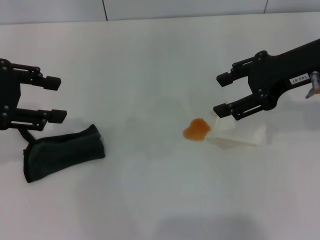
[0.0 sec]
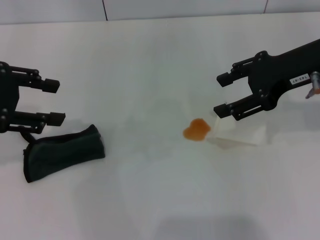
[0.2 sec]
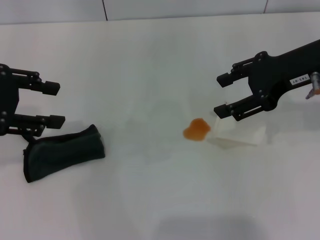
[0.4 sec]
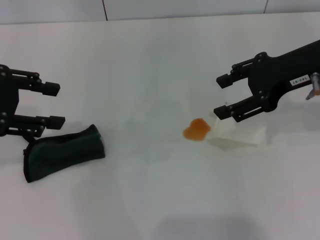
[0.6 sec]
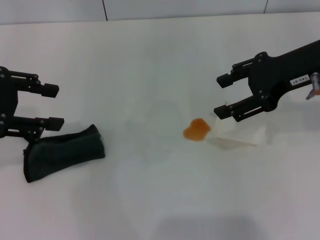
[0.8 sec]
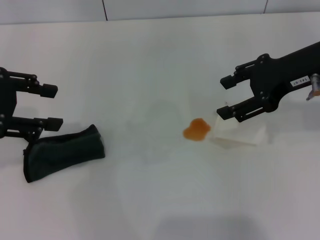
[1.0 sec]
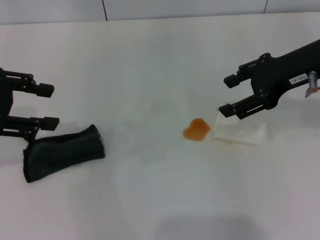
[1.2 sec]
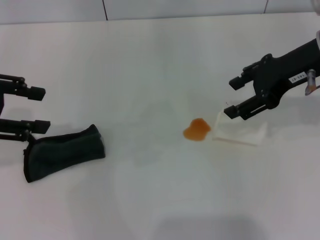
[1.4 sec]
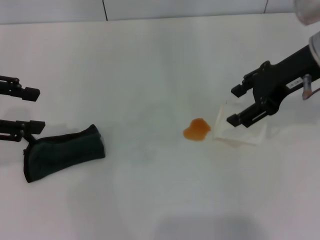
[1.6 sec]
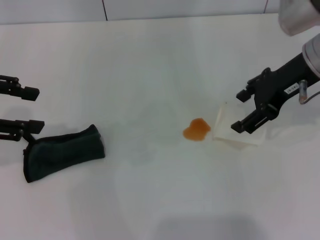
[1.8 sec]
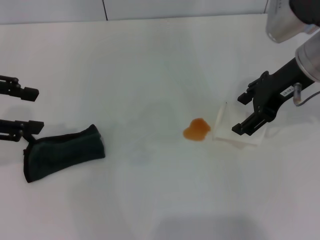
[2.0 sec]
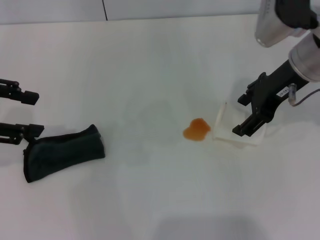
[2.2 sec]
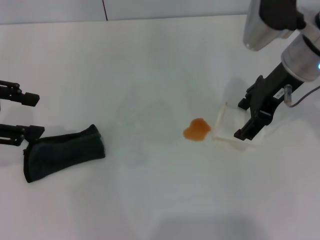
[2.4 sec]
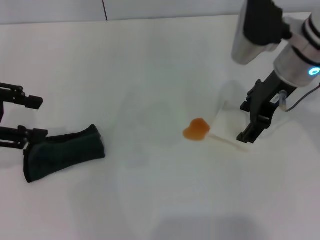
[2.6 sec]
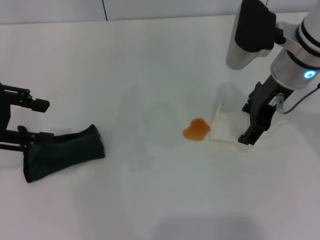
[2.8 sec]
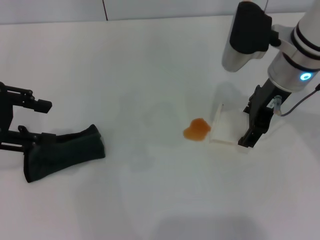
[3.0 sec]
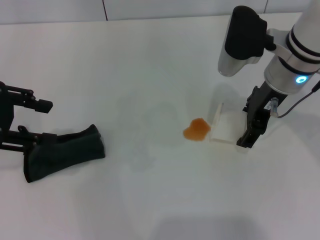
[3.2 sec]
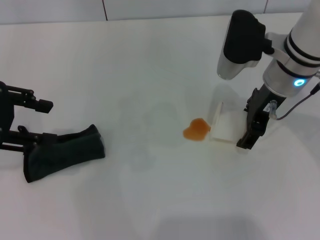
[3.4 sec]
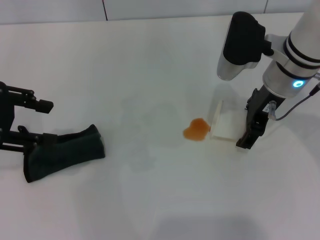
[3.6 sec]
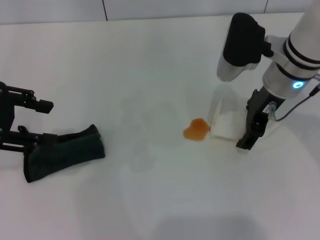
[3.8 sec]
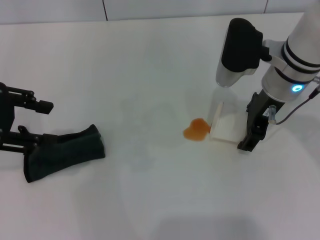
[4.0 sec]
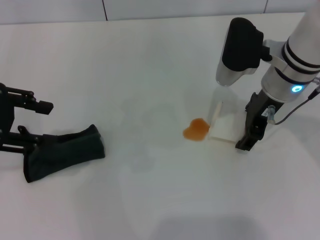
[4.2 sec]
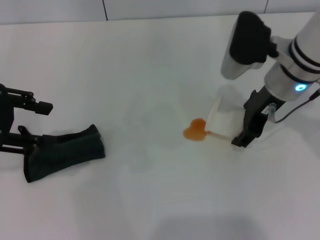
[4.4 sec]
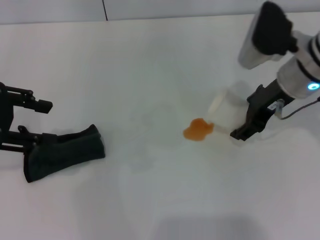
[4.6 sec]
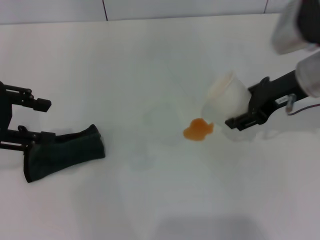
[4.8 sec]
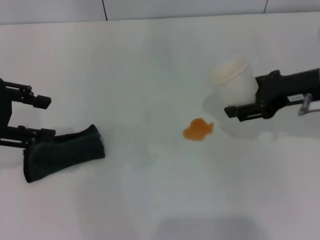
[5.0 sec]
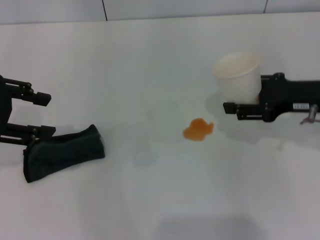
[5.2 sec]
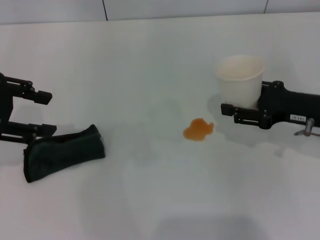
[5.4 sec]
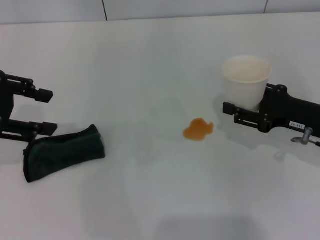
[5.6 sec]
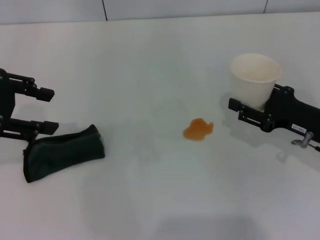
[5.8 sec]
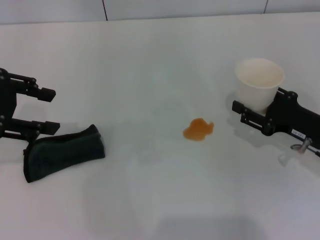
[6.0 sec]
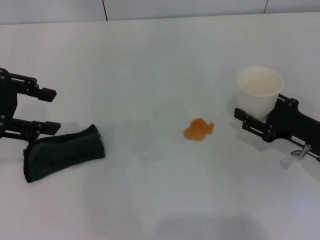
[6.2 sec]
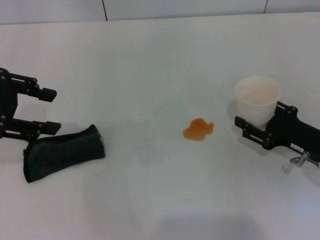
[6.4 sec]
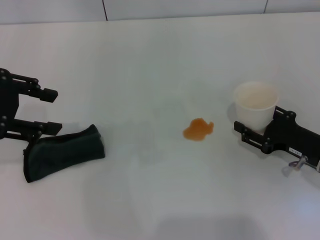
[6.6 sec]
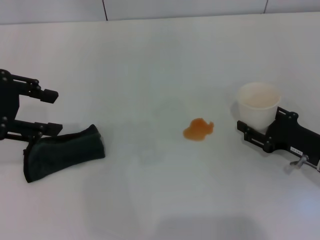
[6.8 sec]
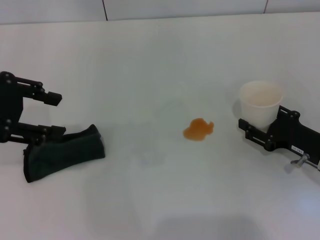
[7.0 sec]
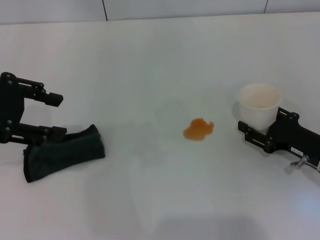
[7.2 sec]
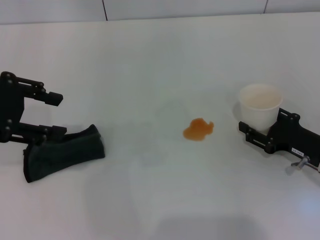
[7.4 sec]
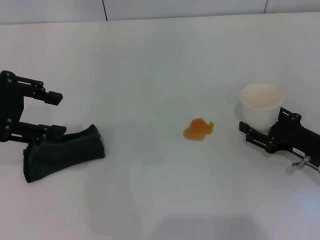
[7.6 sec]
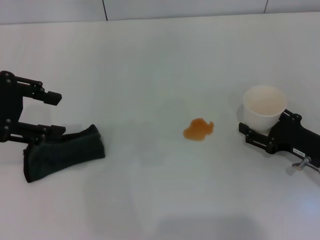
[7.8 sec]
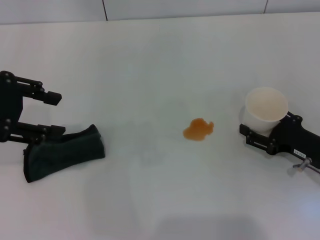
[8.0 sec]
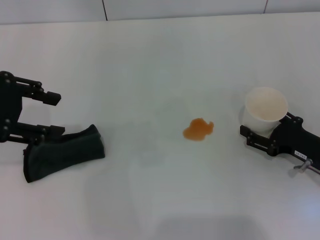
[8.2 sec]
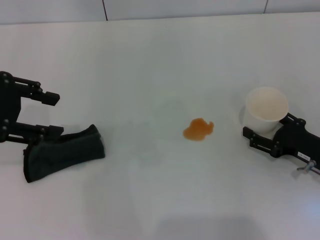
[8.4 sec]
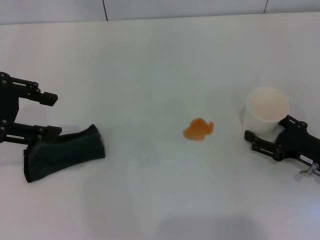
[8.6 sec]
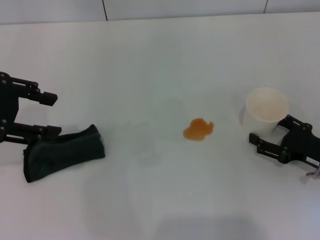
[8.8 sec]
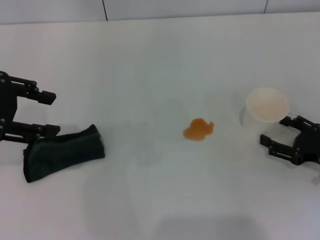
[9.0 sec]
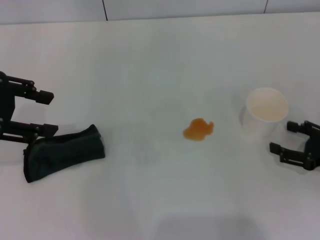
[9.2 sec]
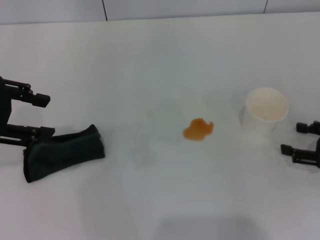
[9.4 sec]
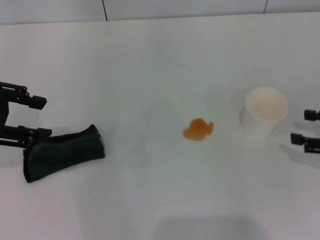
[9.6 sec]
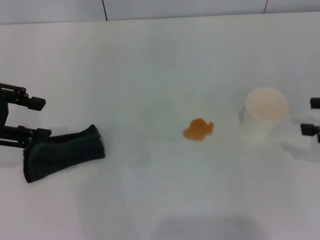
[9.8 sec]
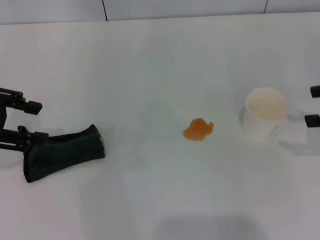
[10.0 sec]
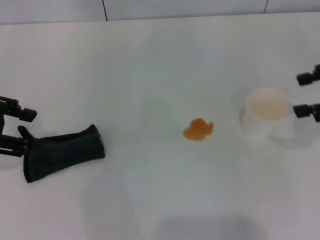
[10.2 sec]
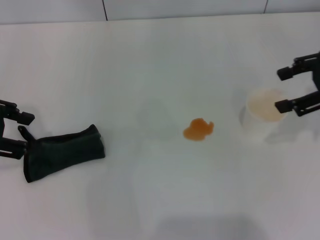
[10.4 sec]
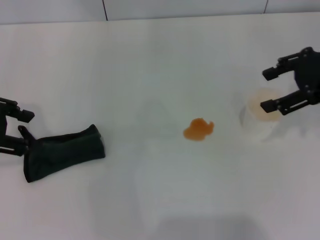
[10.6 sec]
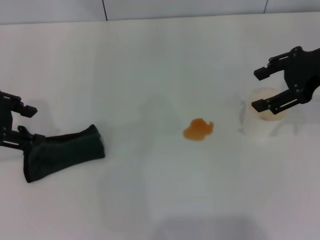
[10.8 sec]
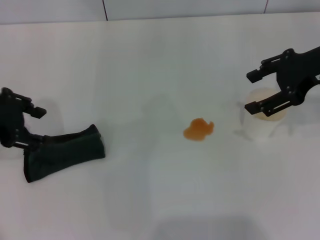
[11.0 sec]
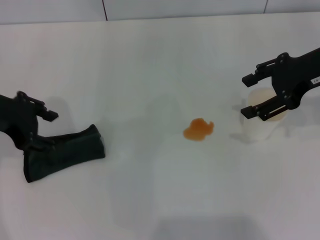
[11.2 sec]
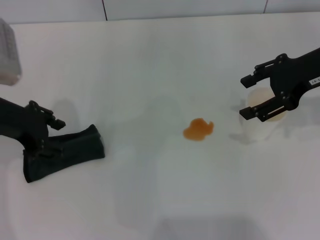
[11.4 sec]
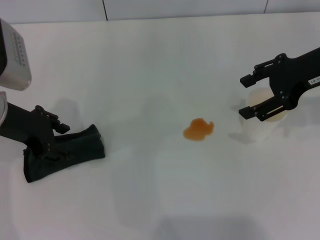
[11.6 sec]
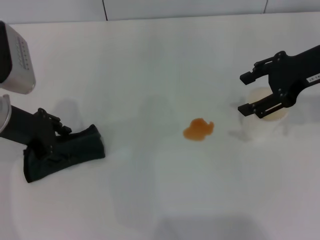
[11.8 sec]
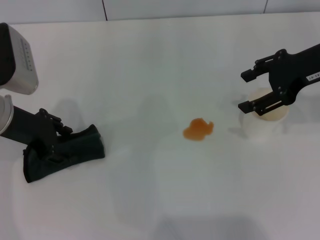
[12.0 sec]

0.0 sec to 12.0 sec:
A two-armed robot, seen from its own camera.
Step, 0.0 sec to 4.0 sec: Grasp the paper cup with the right gripper.
Step, 4.2 sec to 9.0 sec: Stand the paper cup upright with the right gripper.
0.0 sec to 1.6 sec: The grippers move only a little.
1.6 sec to 3.0 sec: The right gripper is displaced to the left by roughly 5 cm, and opens.
3.0 sec to 4.4 sec: The right gripper closes up.
4.4 sec to 6.0 sec: The right gripper travels downward, to the right and backward by approximately 20 cm.
6.0 sec to 7.6 sec: The grippers move only a little.
7.6 sec to 9.0 sec: The right gripper opens its fingers.
9.0 sec to 10.4 sec: The right gripper moves upward and forward, approximately 20 cm.
10.4 sec to 12.0 sec: The right gripper shifts roughly 5 cm to the left. The left gripper shifts approximately 10 cm downward and to the right.

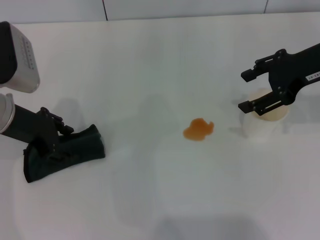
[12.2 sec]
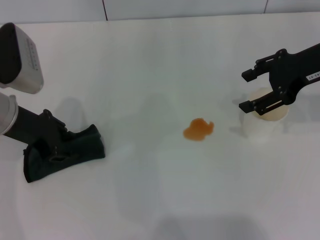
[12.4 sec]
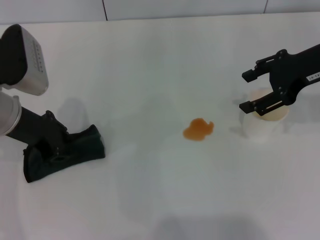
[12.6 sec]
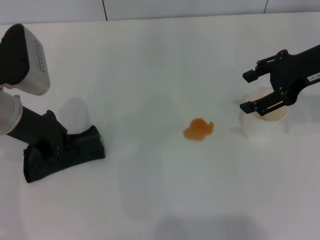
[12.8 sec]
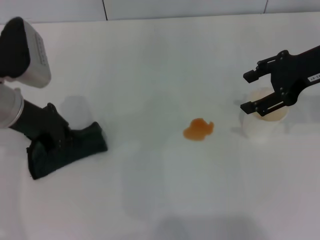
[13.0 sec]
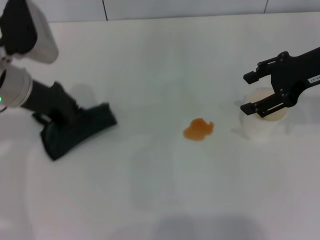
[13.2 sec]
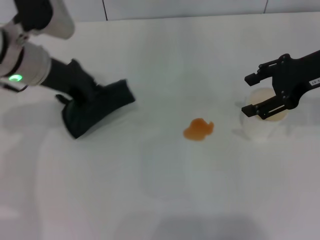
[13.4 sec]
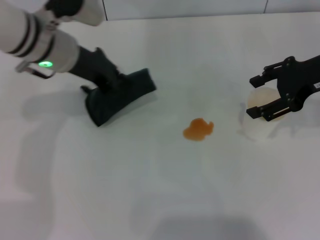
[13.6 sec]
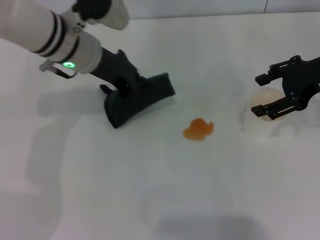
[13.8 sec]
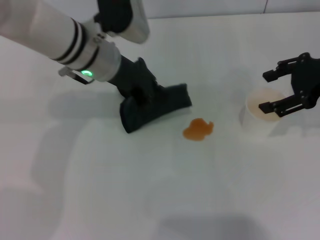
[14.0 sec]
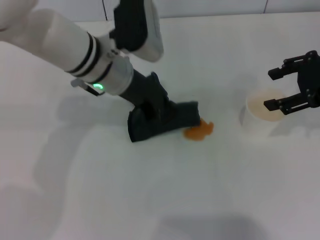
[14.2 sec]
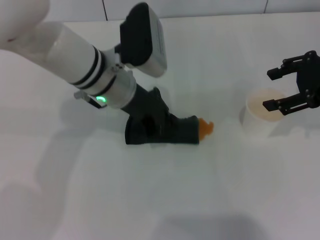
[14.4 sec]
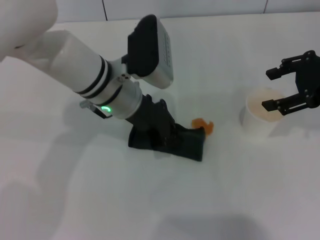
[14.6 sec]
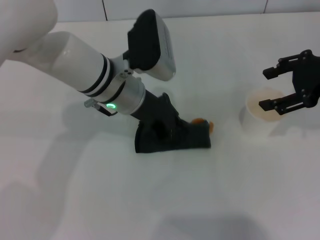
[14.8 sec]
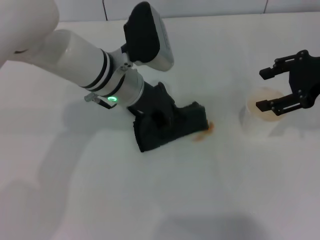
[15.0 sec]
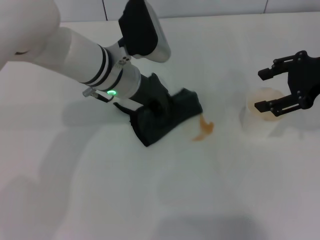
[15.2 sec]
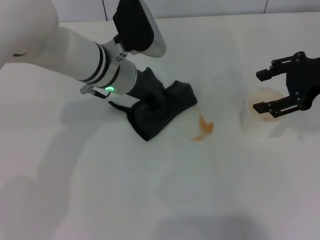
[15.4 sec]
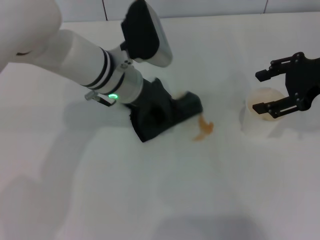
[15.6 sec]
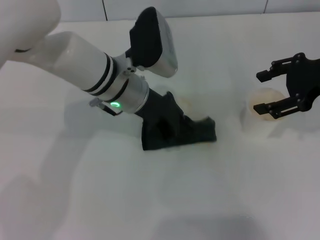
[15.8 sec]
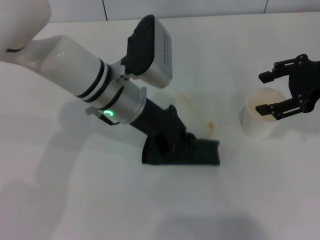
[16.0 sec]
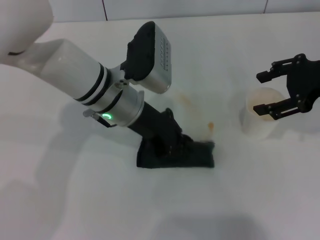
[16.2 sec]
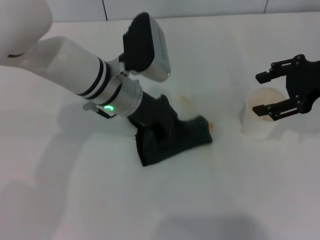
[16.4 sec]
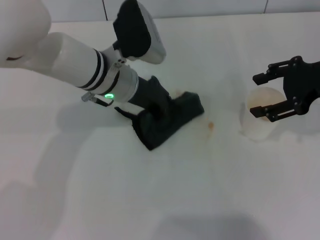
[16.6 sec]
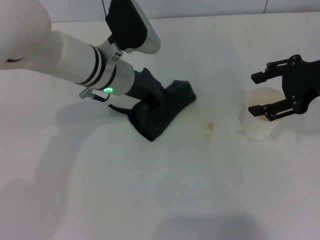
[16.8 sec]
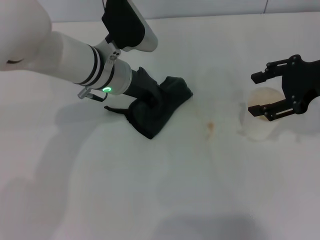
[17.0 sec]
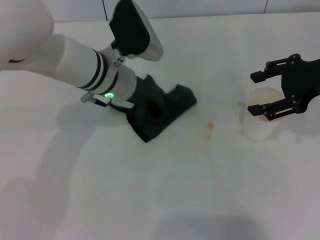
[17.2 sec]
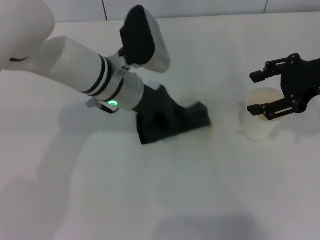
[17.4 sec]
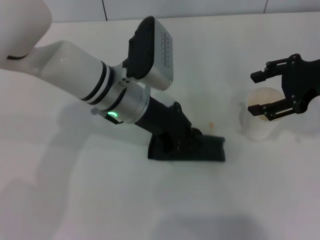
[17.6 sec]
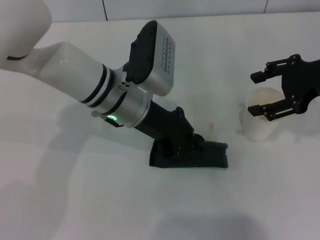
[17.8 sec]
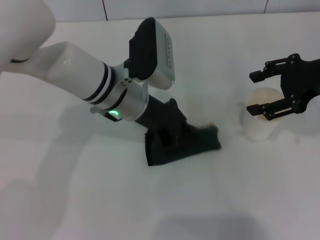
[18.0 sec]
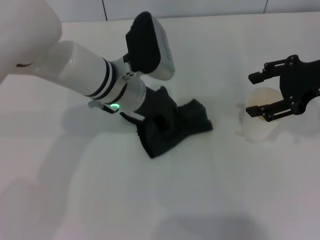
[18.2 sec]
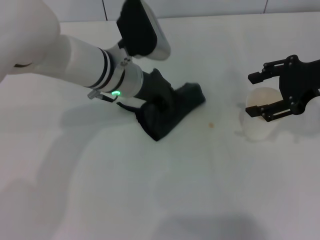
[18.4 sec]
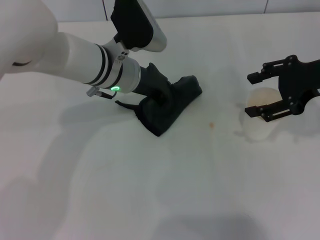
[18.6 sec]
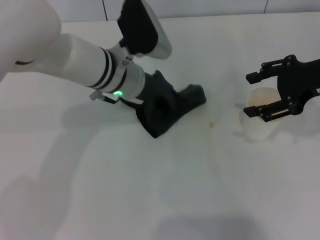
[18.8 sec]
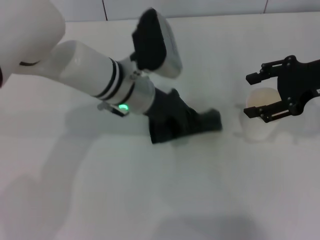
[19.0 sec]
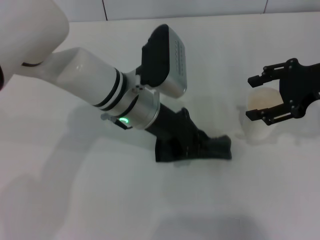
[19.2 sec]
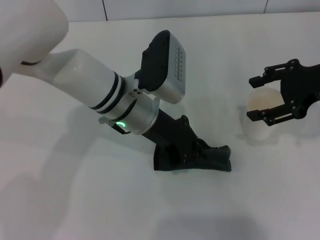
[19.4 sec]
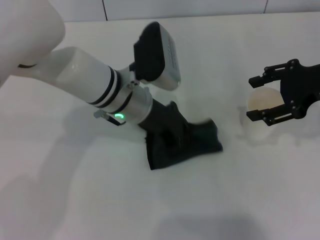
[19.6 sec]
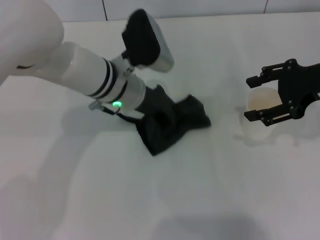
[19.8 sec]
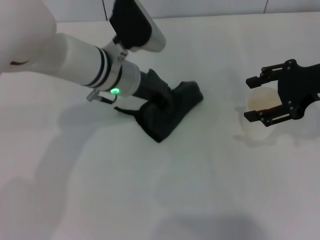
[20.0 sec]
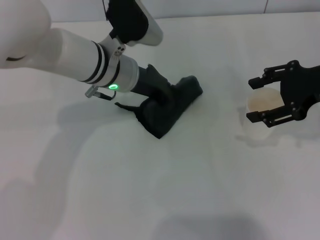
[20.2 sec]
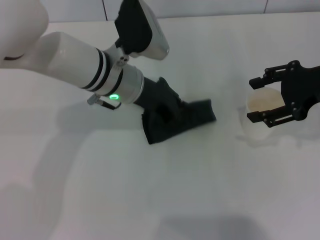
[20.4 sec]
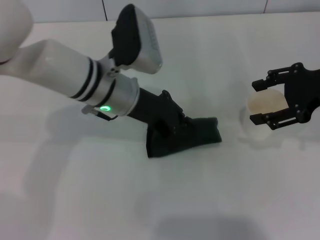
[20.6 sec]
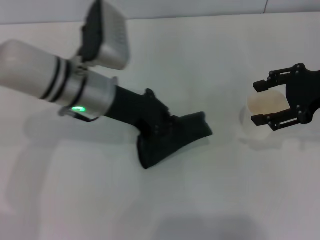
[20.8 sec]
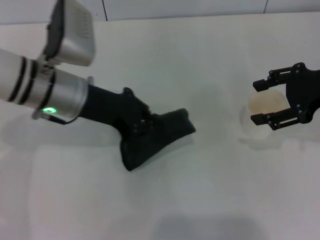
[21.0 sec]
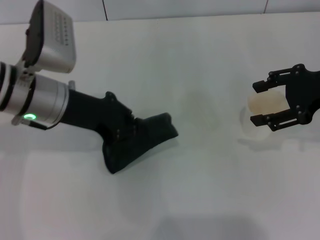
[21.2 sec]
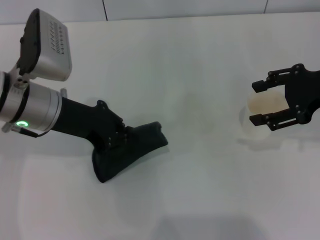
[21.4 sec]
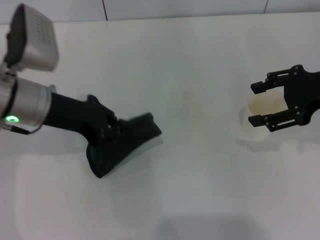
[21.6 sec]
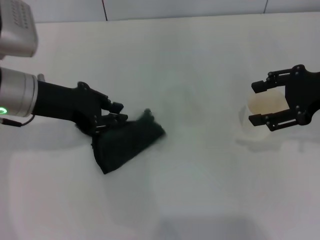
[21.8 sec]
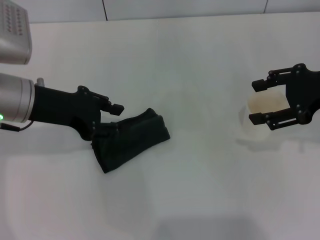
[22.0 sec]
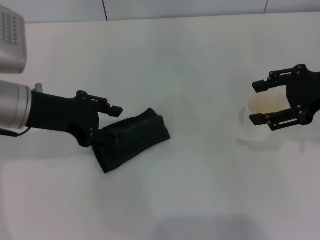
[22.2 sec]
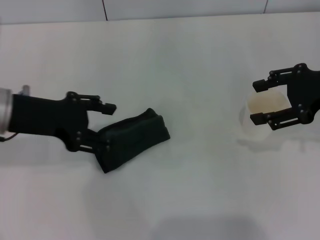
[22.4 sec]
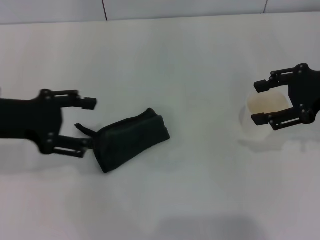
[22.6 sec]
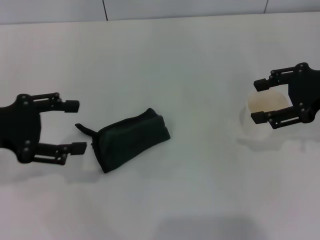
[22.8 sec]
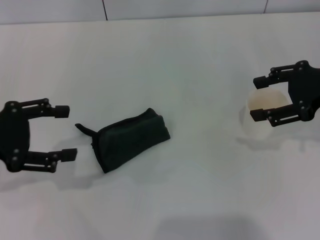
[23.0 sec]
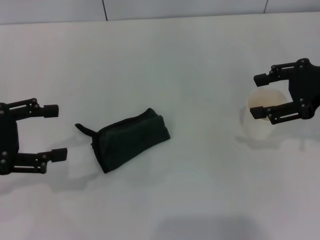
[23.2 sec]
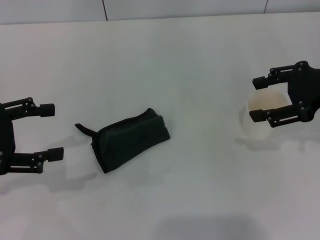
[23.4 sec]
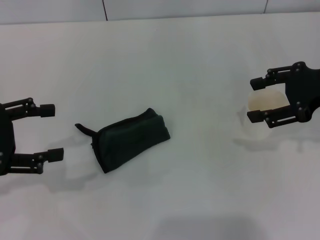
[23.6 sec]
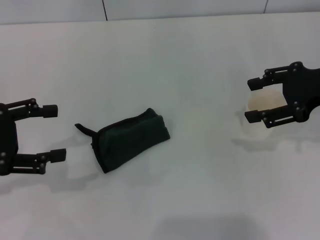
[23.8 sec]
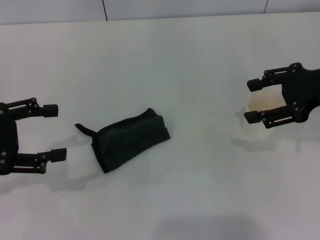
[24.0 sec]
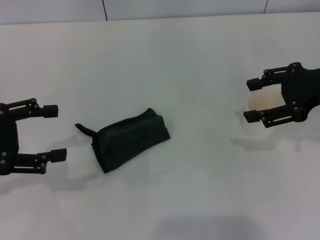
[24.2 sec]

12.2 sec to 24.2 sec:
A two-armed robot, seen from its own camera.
Step, 13.0 sec to 21.4 sec: Wipe the stains off the table with the left gripper.
Step, 21.6 sec to 22.4 sec: Place the rag on the table with the left gripper.
12.2 sec to 13.8 sec: The left gripper moves to the right and forward, some 15 cm, and closes its fingers.
13.8 sec to 15.2 sec: The left gripper moves to the right, about 5 cm.
18.2 sec to 19.8 sec: There are only small adjustments of the grippers.
19.8 sec to 21.2 sec: The left gripper heads to the left, covering about 10 cm.
21.2 sec to 22.6 sec: The left gripper is displaced to the left by roughly 10 cm, and opens up.
22.6 sec to 24.2 sec: The left gripper changes place by approximately 5 cm.
